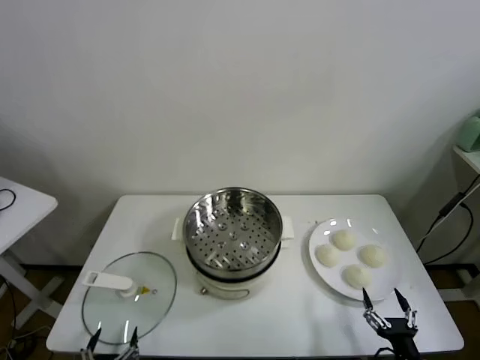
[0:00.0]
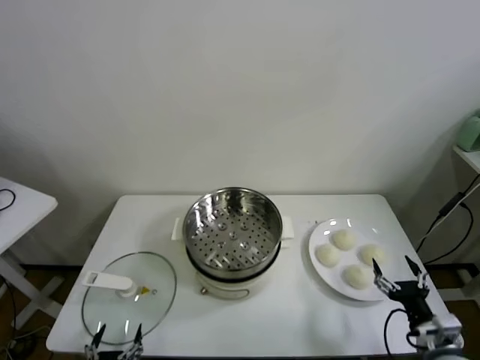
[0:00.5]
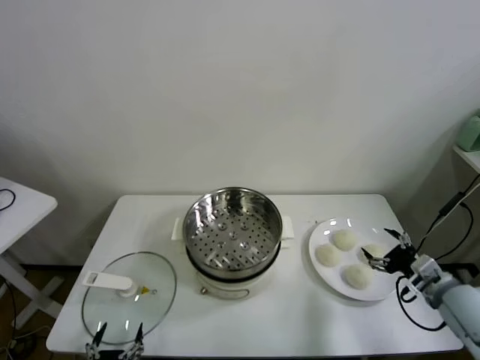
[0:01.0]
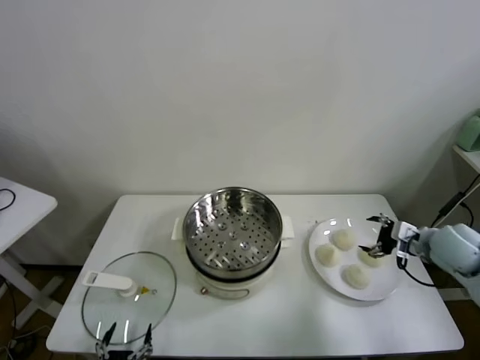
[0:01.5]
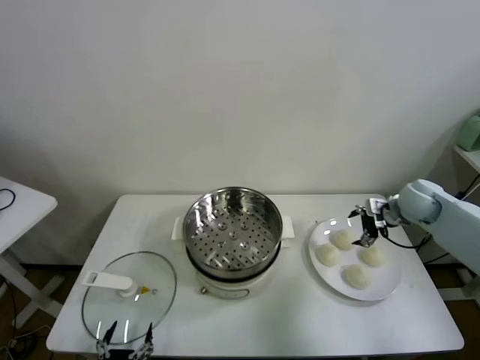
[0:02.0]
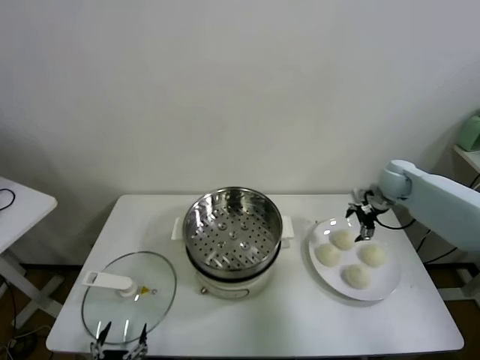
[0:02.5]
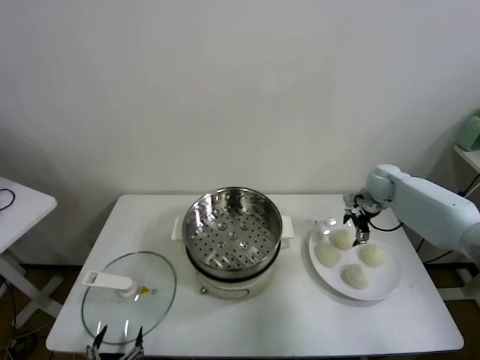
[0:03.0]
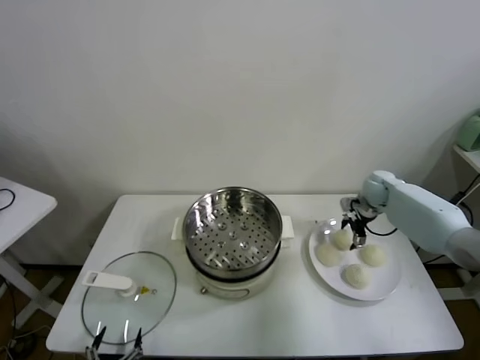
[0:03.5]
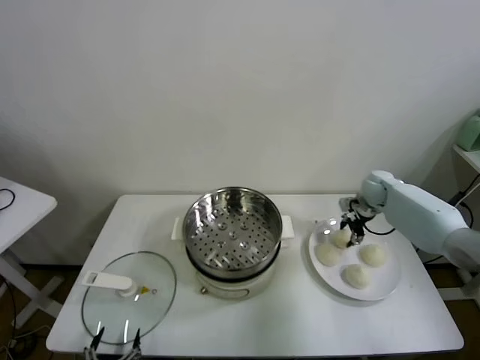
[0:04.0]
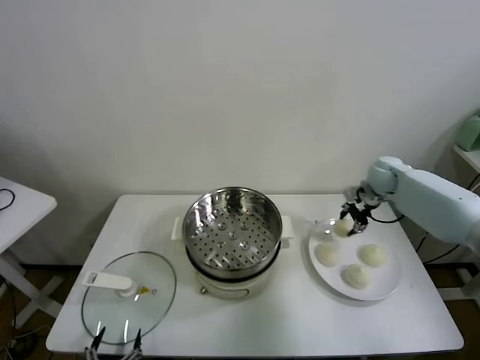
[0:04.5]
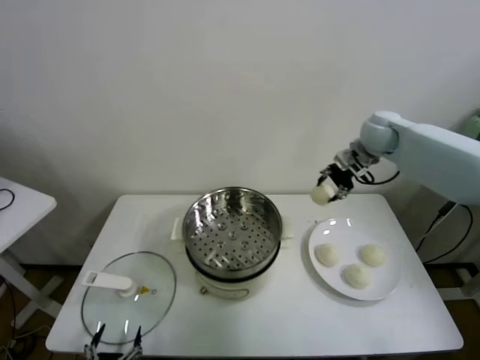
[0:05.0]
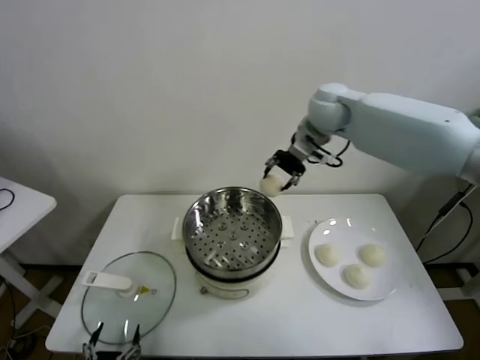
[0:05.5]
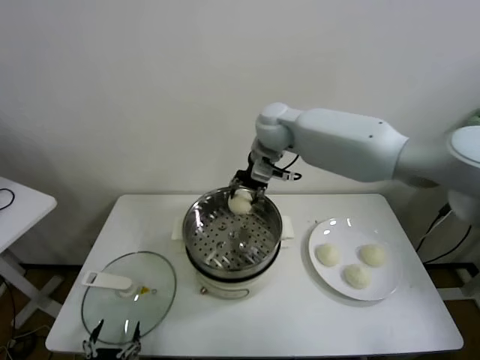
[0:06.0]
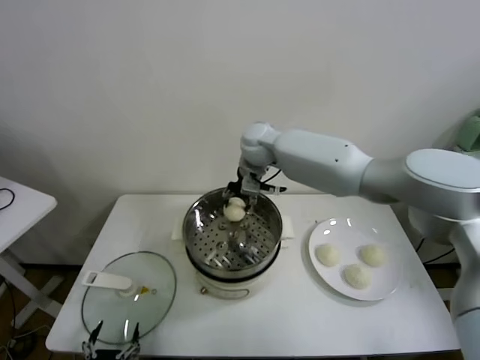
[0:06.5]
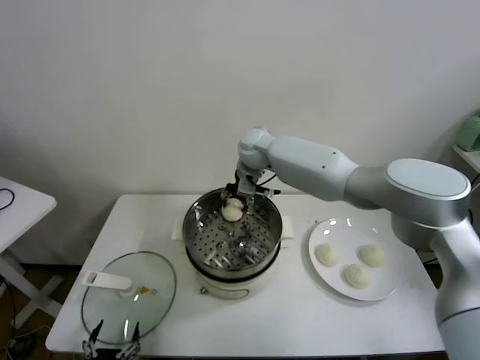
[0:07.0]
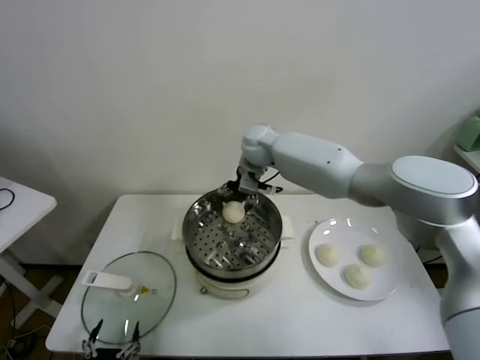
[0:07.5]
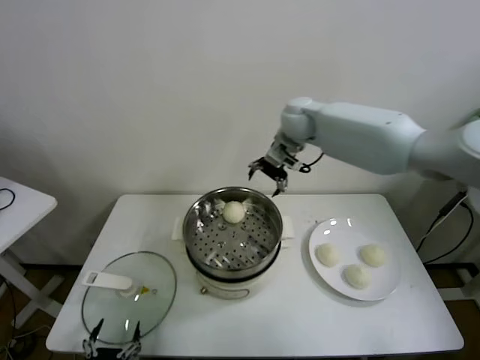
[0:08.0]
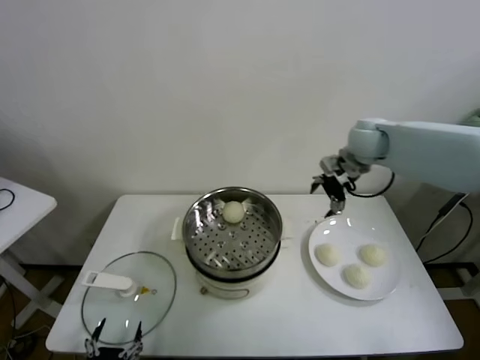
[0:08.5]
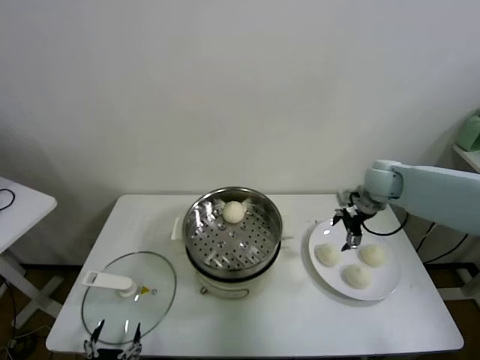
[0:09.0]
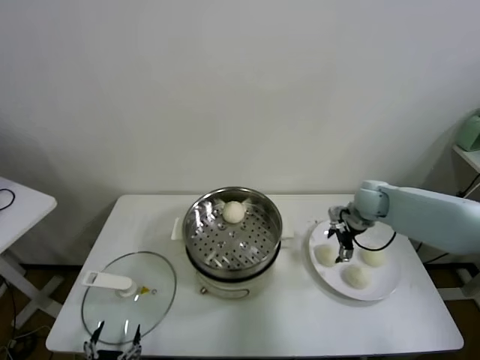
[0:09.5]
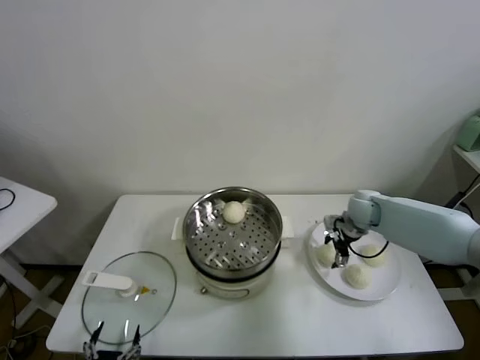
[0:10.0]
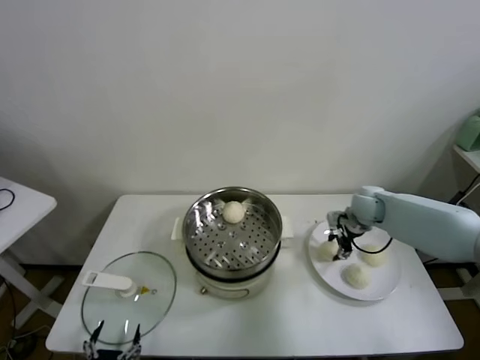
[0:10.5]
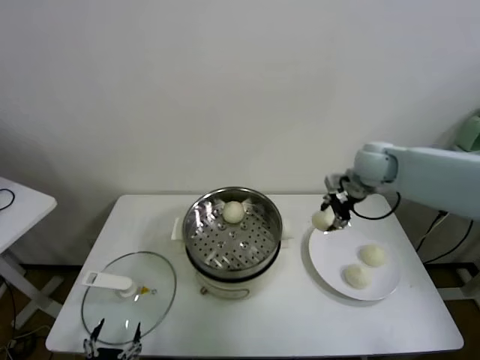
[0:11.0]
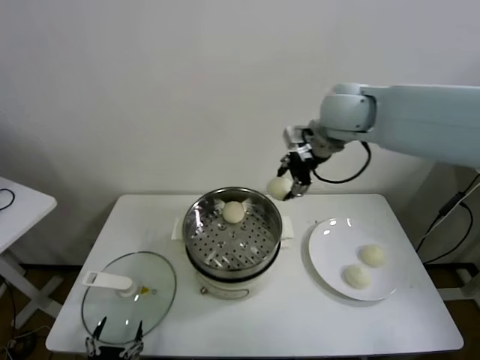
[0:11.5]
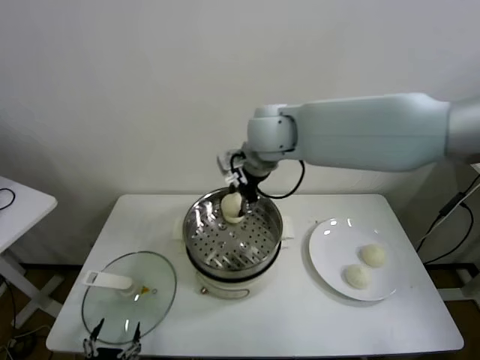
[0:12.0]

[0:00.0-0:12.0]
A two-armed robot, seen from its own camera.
Task of the whole recording: take steamed baozi put them in steamer.
Step, 0:00.0 to 0:03.5: Grasp the baozi in the plate with right gripper.
Step, 0:04.0 to 0:07.5: Place the baozi on the steamer with right gripper.
Step, 0:08.0 to 0:10.0: Grasp the baozi in the plate with right gripper.
0:02.0 to 0:04.0: The right gripper travels forward and downward by about 10 cm, and closes up.
0:04.0 to 0:06.0: The right gripper is displaced to the left and upward by about 35 cm.
0:06.0 to 0:08.0: The right gripper travels to the right by approximately 10 cm, and opens up.
0:08.0 to 0:10.0: The right gripper is displaced downward and to the right by about 30 cm.
0:10.0 to 0:12.0: The right gripper shifts some 40 cm to the left and upward, and closes.

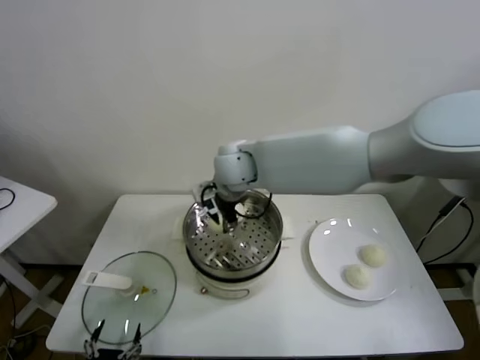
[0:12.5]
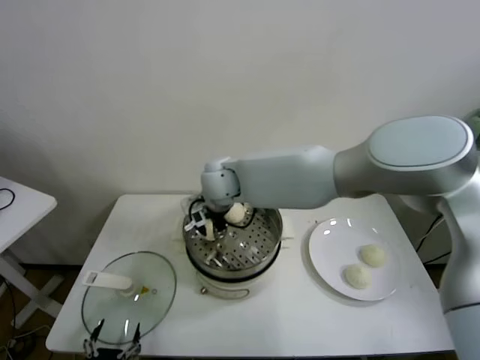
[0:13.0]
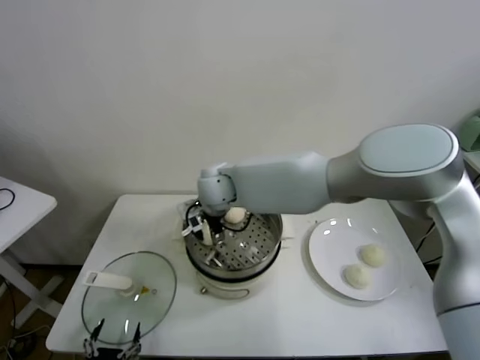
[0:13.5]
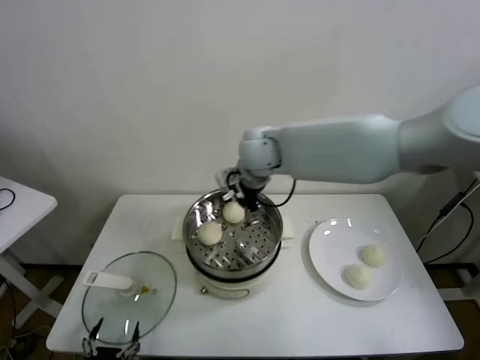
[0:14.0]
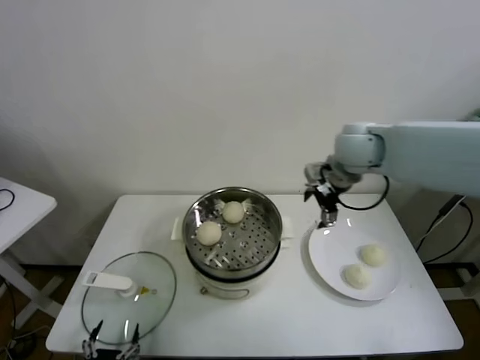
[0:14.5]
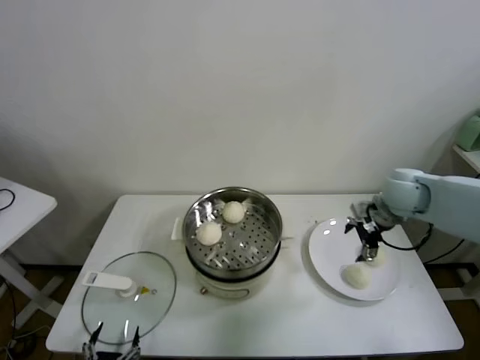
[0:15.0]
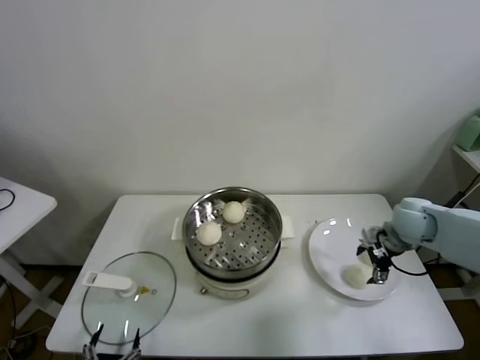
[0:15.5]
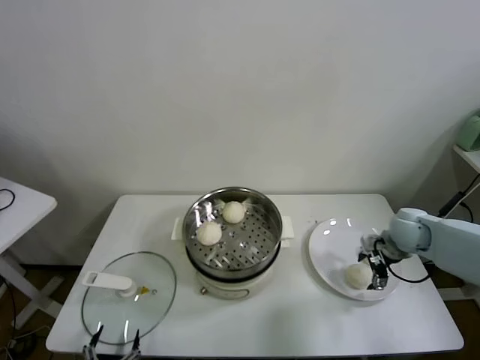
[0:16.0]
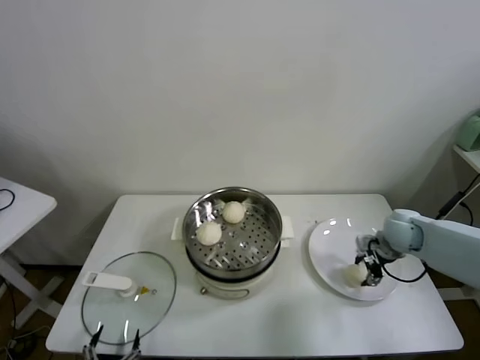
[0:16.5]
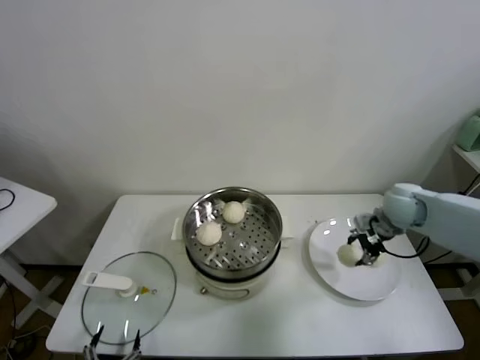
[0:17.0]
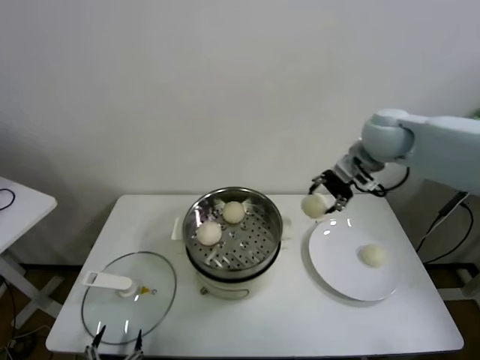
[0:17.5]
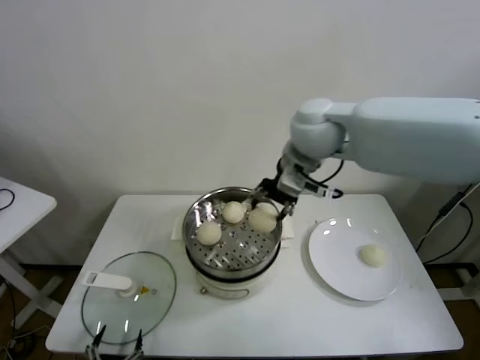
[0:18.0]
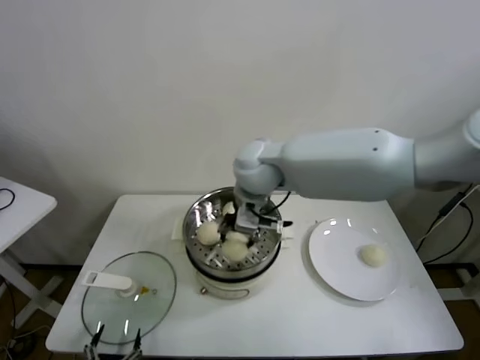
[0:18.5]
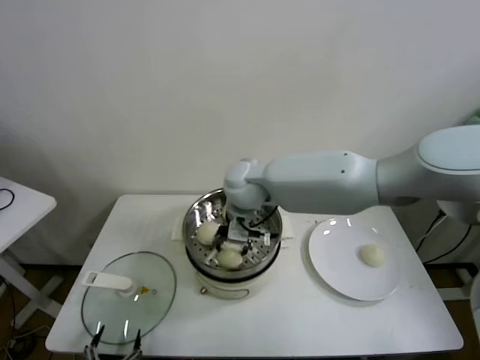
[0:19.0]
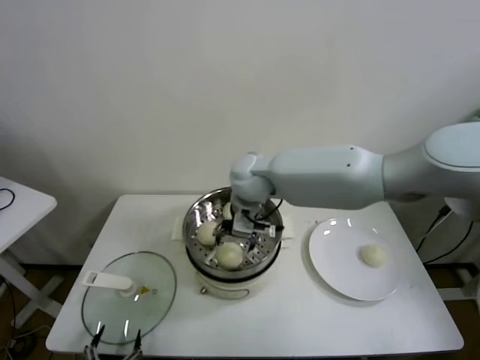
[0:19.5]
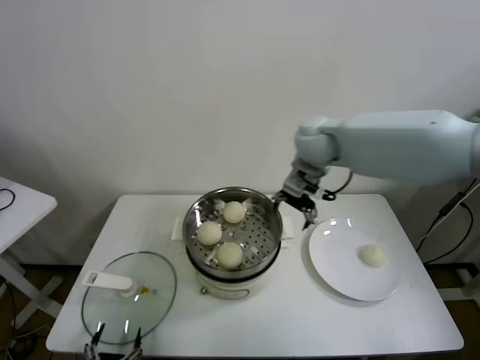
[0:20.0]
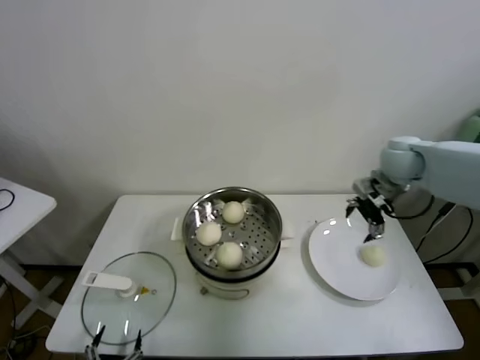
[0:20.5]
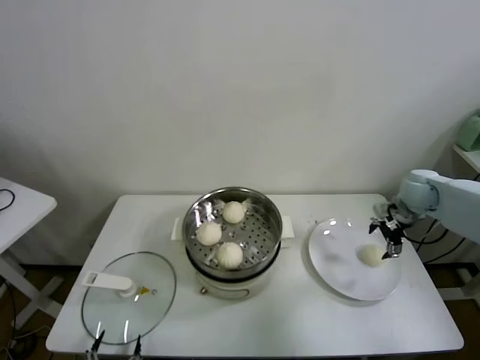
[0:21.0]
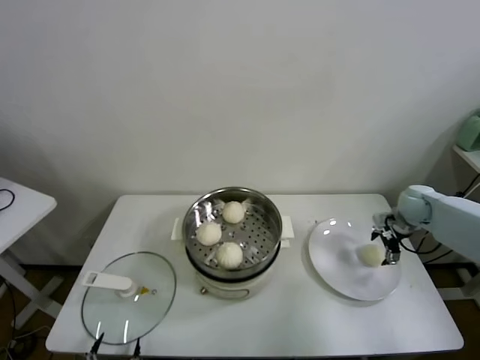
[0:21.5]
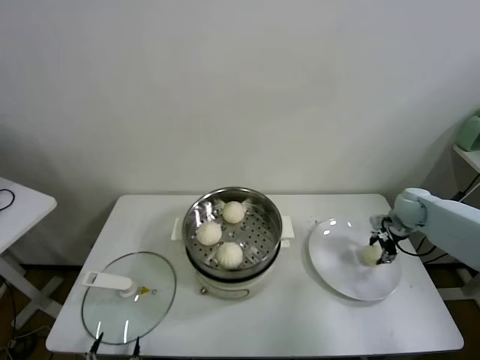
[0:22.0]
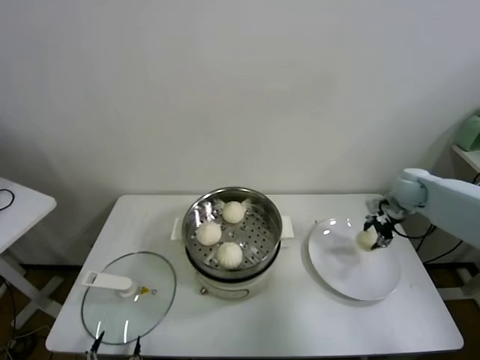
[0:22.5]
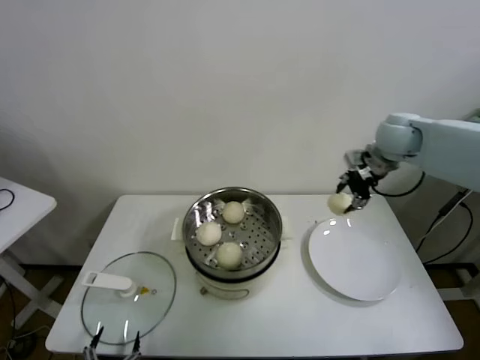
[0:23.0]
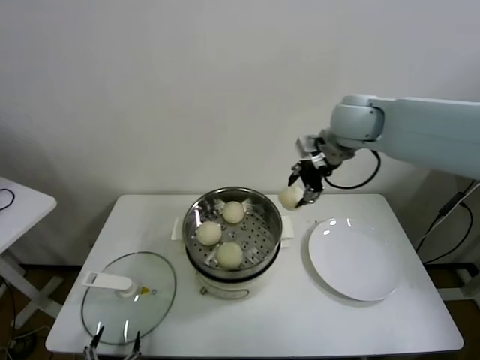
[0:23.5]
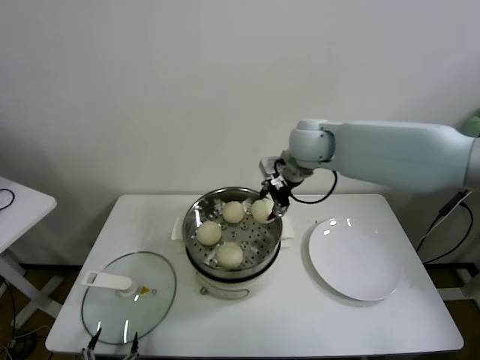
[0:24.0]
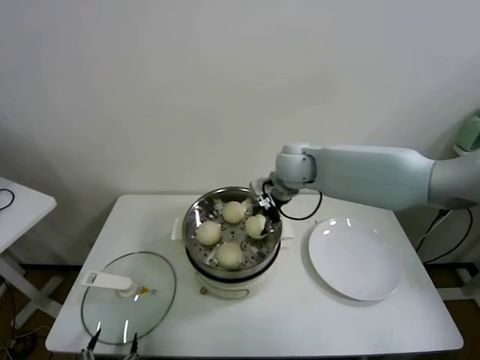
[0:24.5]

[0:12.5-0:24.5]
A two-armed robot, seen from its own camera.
Task of the whole recording: take steamed baozi put them in steamer.
Step, 0:14.0 to 0:16.0: Grasp the baozi in the plate with right gripper.
Step, 0:17.0 to 0:19.0: Place the baozi on the steamer with right gripper.
Step, 0:20.0 to 0:22.0: Grasp the baozi in the plate with right gripper.
0:12.5 to 0:14.5: The right gripper travels to the right by roughly 25 cm, and opens its fingers.
0:14.5 to 0:16.5: The right gripper goes approximately 25 cm downward and to the right, and closes its fingers.
0:16.5 to 0:18.5: The right gripper moves to the left and upward, roughly 40 cm.
0:18.5 to 0:20.5: The right gripper travels to the right by some 30 cm, and opens.
0:20.5 to 0:22.5: The right gripper moves downward and to the right, approximately 15 cm, and closes up.
0:22.5 to 0:24.5: The right gripper is displaced to the left by roughly 30 cm.

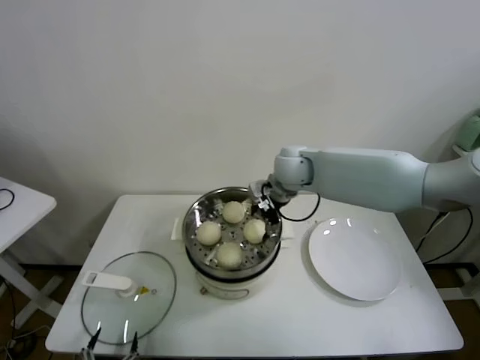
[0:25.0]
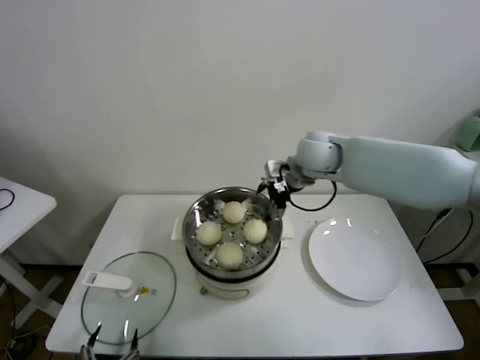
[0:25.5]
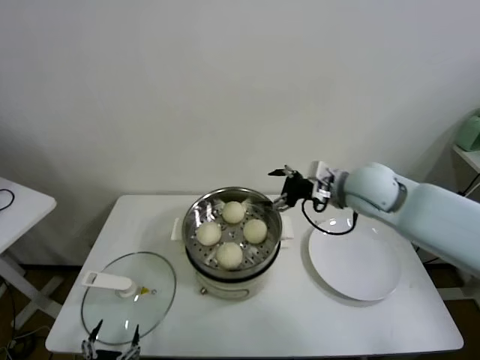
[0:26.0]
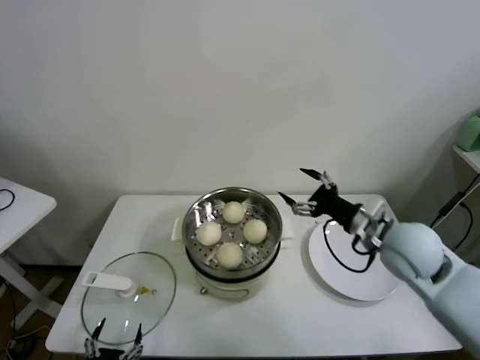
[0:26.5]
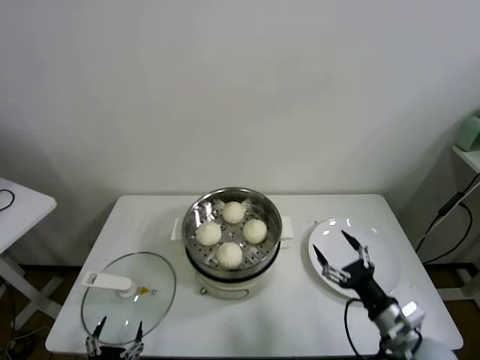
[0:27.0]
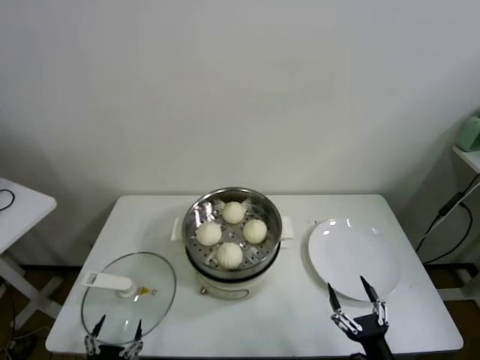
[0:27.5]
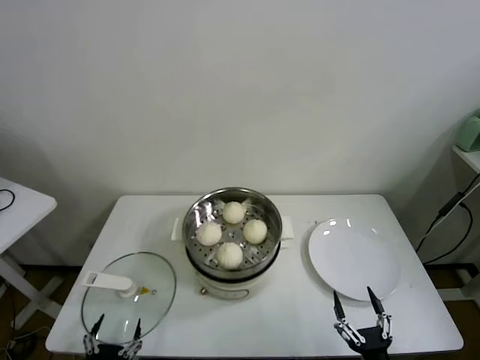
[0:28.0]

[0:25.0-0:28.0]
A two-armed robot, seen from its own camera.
Task of the whole recording: take steamed baozi put them in steamer.
0:25.0 to 0:26.5: The right gripper shifts roughly 25 cm to the right and backward.
0:26.5 to 0:28.0: The right gripper heads backward and downward, covering about 40 cm.
